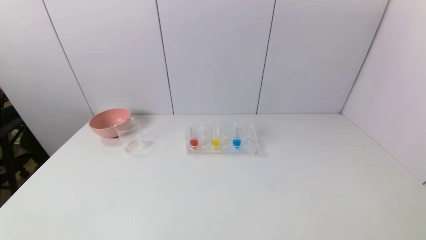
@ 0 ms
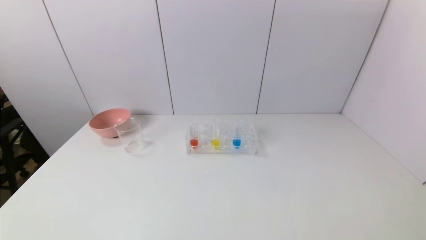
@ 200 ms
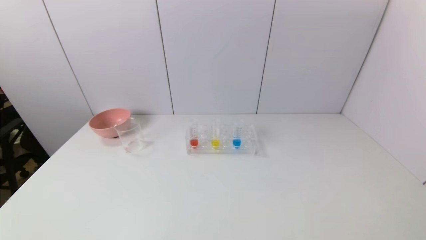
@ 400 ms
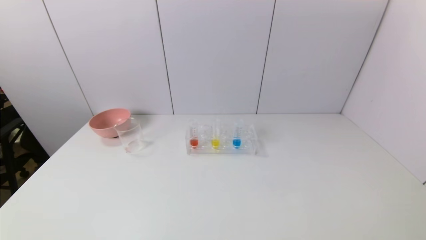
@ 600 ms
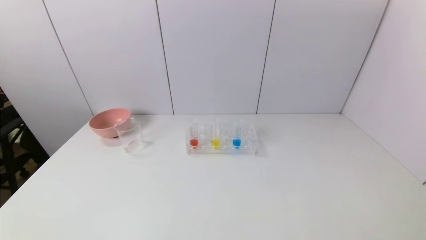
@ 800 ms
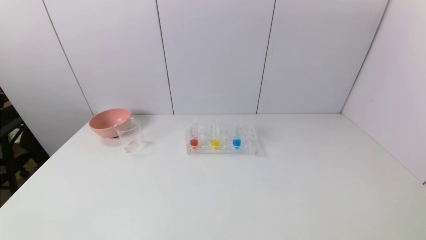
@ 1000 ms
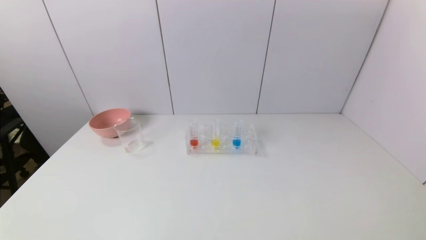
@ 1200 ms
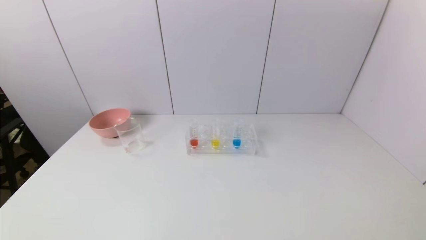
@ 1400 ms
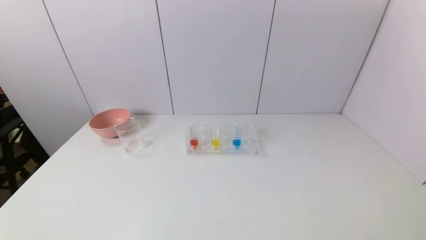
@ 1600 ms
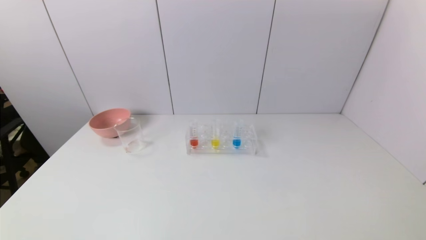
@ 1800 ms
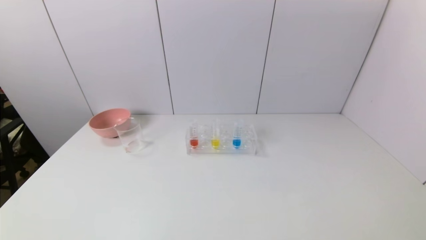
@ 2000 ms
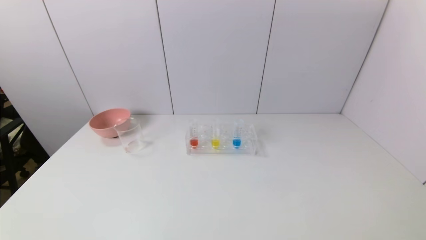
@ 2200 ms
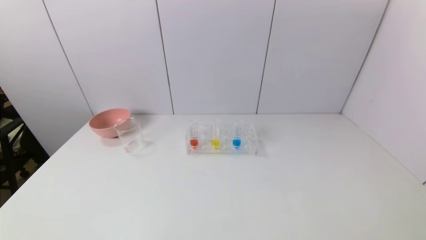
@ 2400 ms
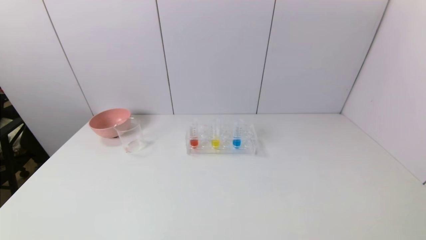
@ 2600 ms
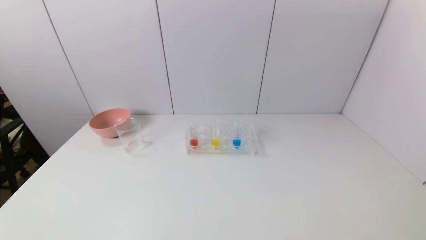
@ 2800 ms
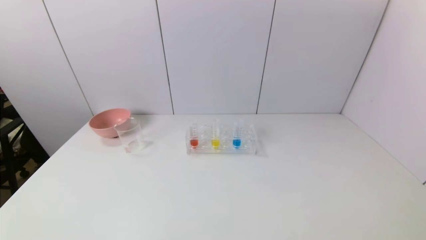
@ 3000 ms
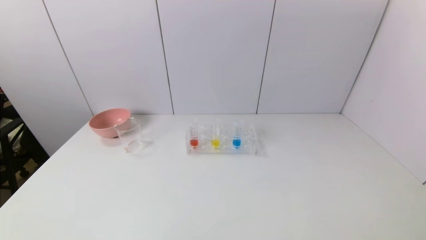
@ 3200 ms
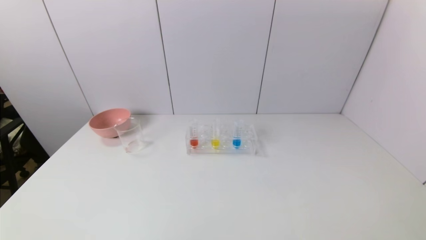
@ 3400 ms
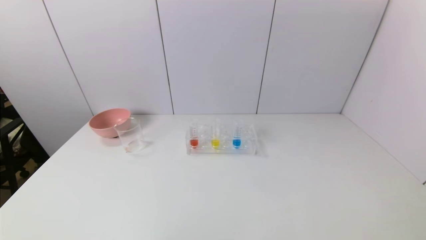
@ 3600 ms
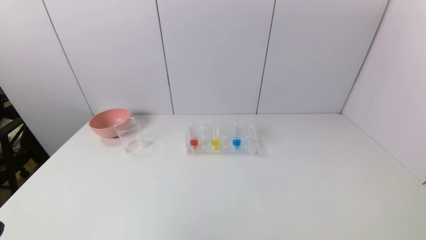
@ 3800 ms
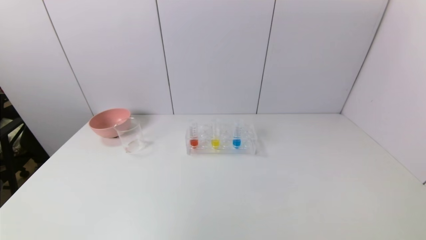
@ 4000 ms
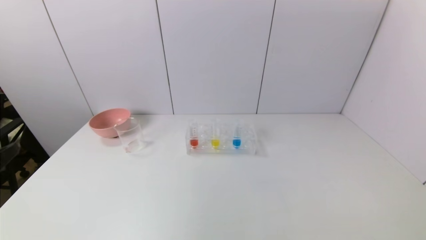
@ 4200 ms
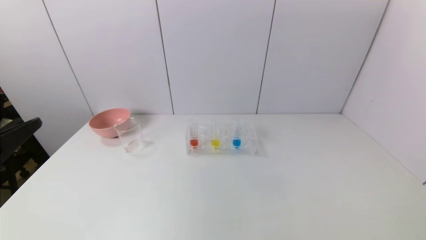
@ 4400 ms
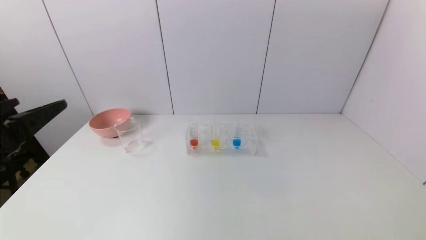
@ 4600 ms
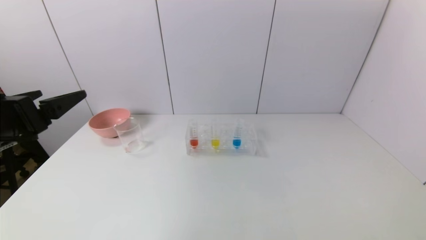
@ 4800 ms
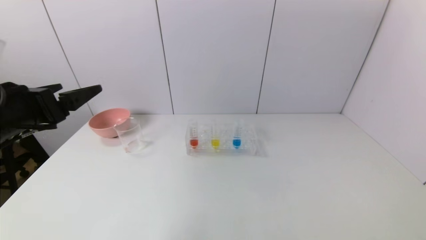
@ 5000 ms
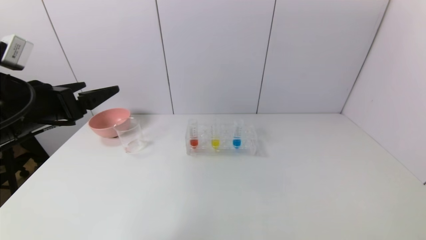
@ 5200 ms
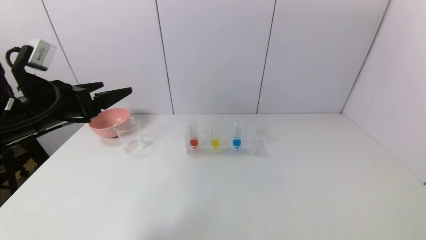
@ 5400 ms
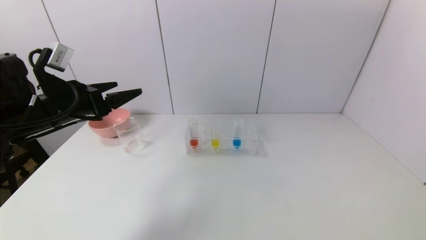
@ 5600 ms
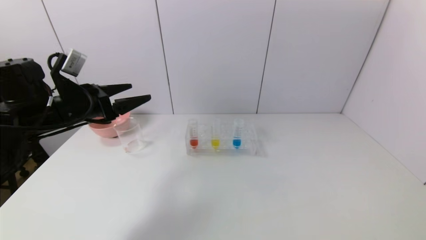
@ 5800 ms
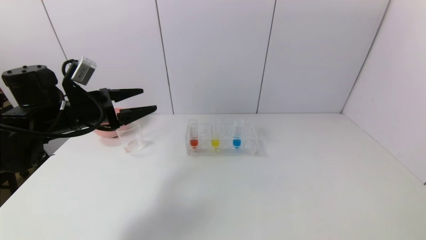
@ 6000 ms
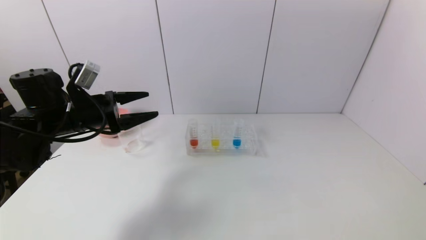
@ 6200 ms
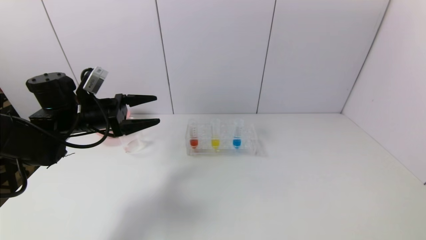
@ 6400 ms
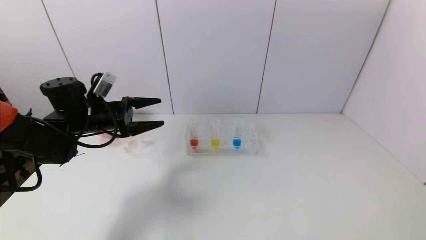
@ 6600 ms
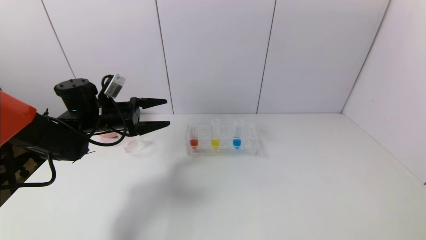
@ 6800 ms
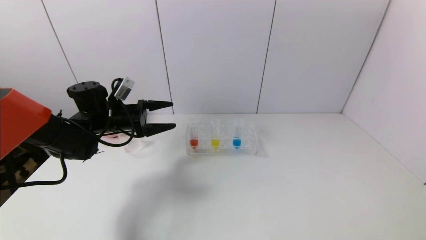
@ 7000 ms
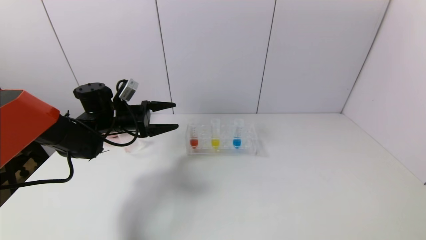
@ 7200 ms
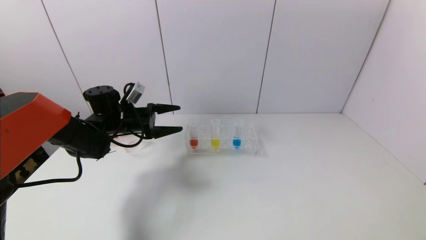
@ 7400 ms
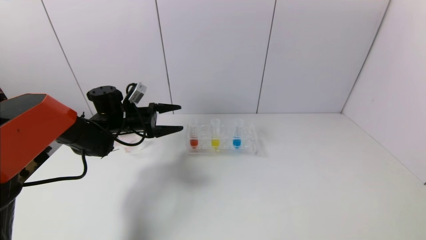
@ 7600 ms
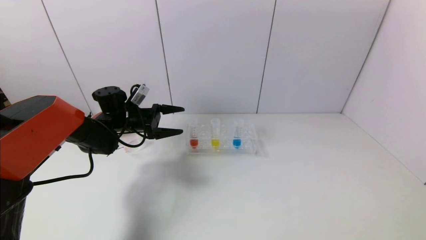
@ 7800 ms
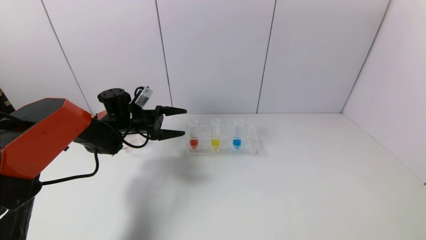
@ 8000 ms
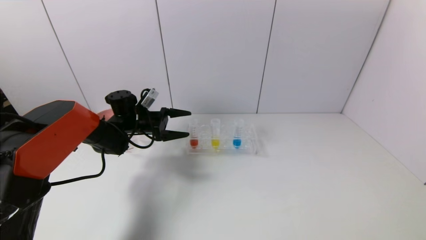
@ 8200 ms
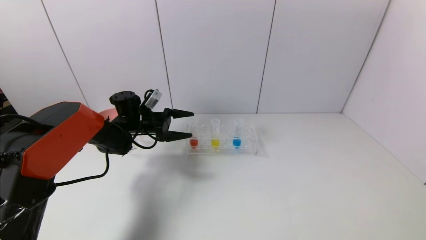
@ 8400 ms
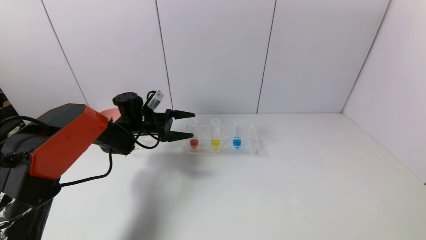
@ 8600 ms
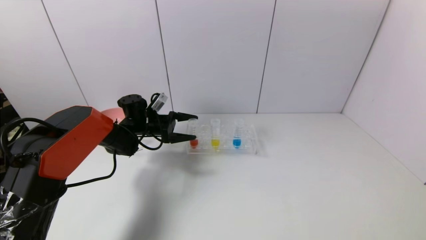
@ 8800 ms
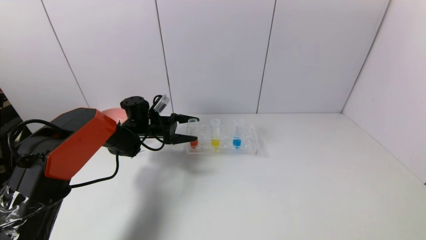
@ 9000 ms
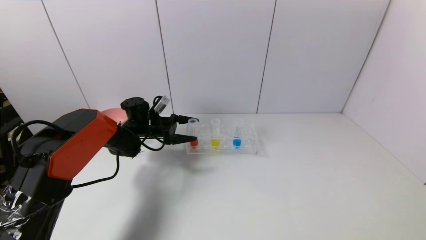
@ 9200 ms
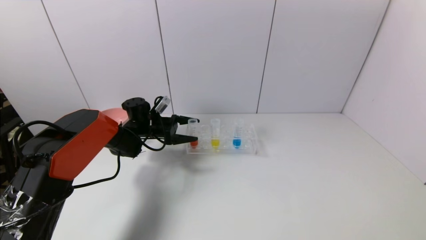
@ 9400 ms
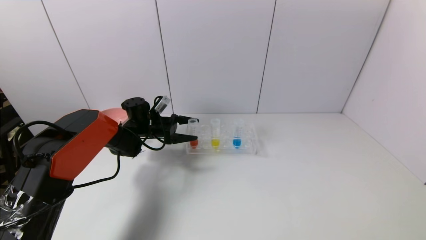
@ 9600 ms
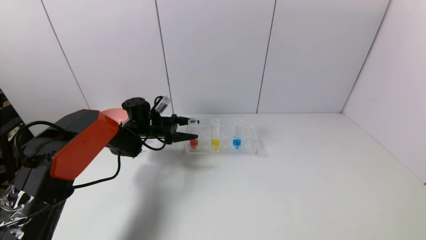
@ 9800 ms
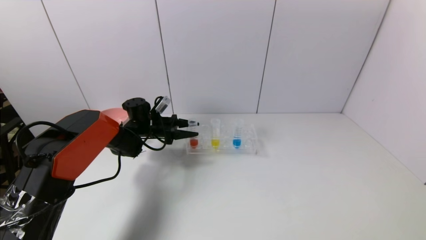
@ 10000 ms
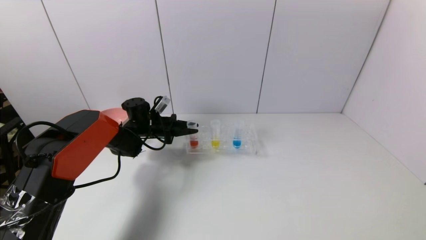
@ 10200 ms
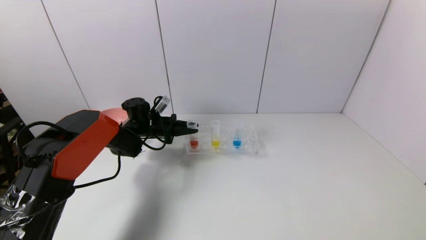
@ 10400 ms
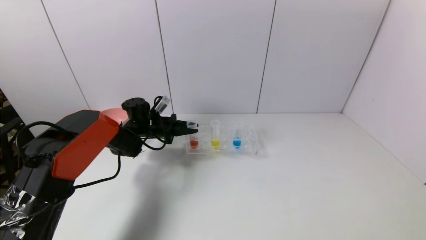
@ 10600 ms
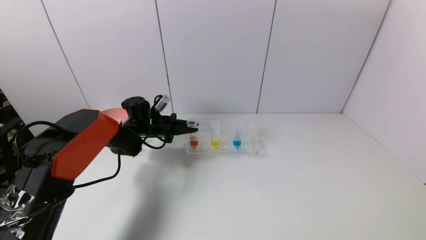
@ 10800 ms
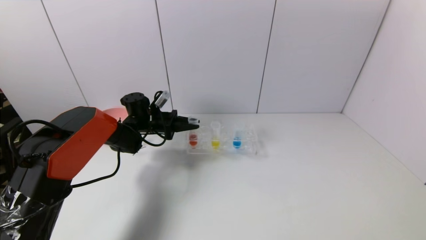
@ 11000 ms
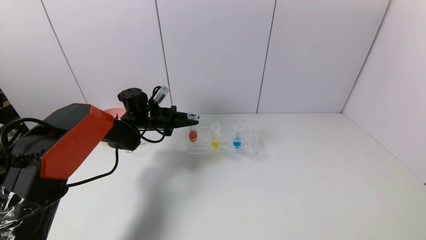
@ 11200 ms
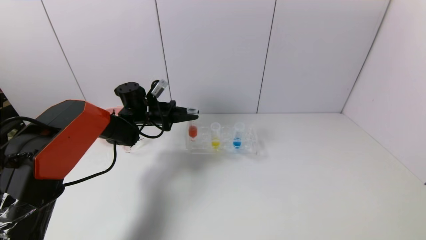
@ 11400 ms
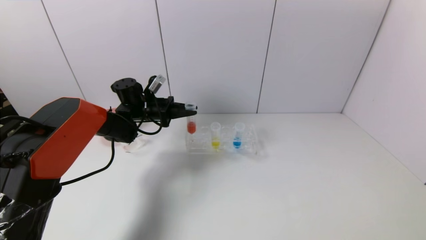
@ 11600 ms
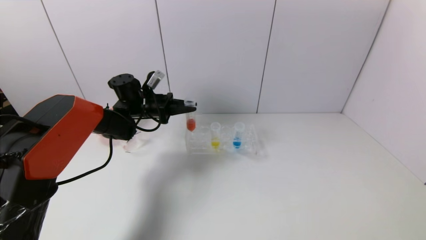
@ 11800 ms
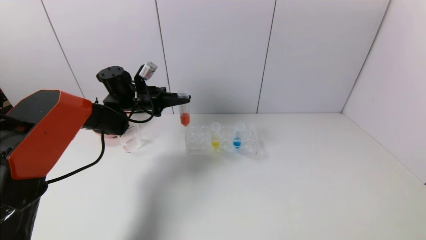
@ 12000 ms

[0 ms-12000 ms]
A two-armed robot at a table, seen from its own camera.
Task of the whole recording: pick up the test tube with red pigment and the test tube with blue pigment by grippers and pour them into the container.
Step, 0 ms to 10600 ms: Grasp the red reagent with the left gripper.
0 ms to 3000 ms: Both grippers stay about where they are.
4400 ms to 6000 ms: The left gripper shifts approximately 20 cm forward.
6000 ms to 7600 ms: The left gripper heads forward and downward, covering some 15 cm.
7600 ms to 9000 ms: The left gripper goes about 5 cm downward.
9000 ms to 10400 ms: The left gripper closes its fingers.
10400 ms to 12000 ms: The left gripper heads upward, covering approximately 10 cm.

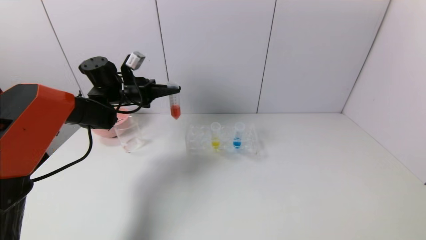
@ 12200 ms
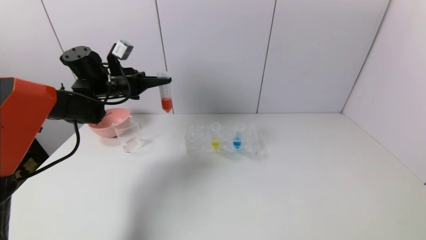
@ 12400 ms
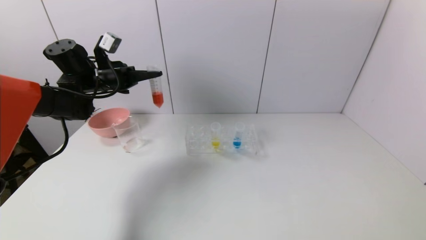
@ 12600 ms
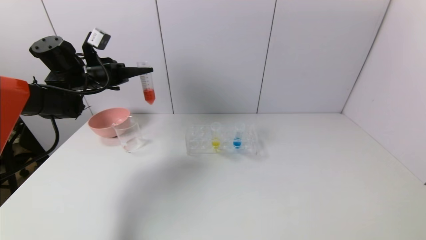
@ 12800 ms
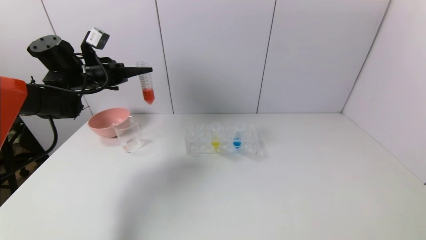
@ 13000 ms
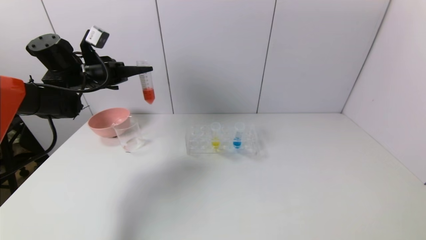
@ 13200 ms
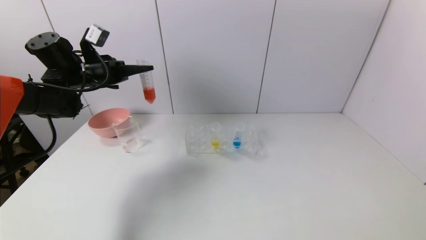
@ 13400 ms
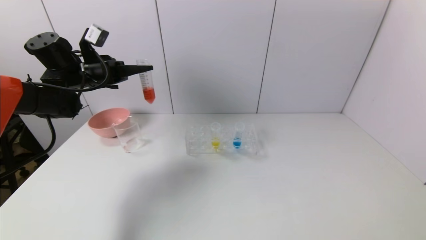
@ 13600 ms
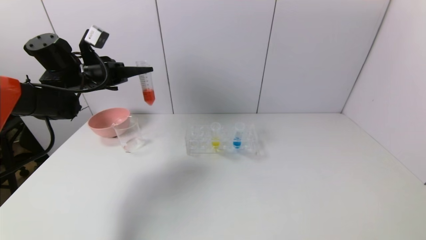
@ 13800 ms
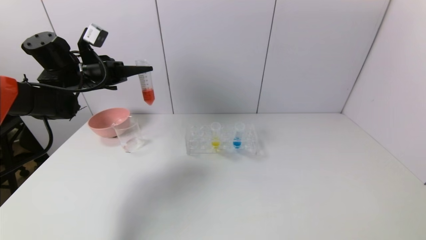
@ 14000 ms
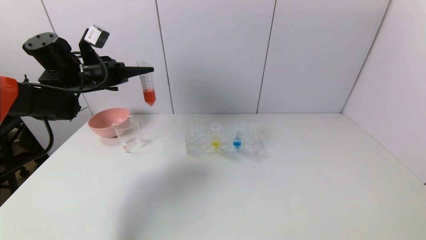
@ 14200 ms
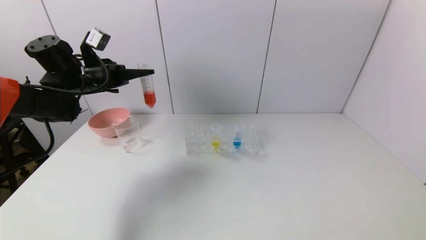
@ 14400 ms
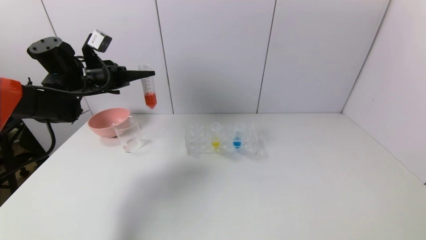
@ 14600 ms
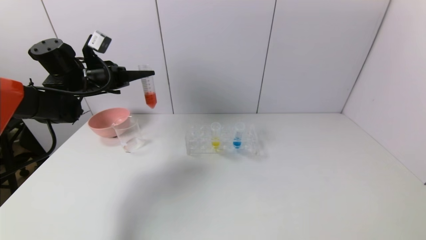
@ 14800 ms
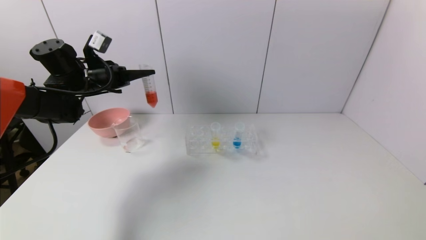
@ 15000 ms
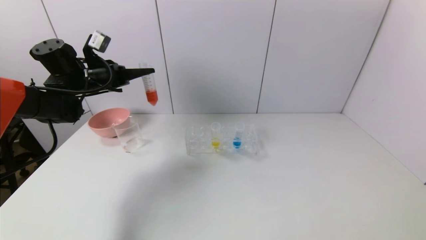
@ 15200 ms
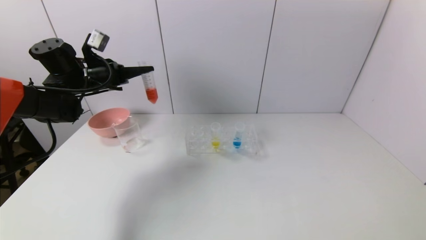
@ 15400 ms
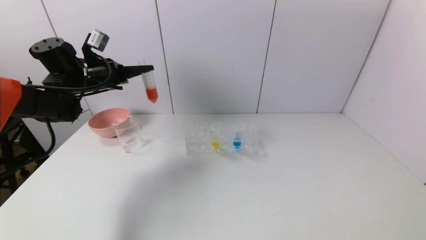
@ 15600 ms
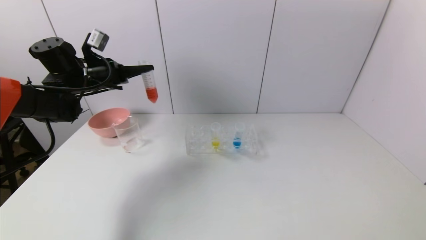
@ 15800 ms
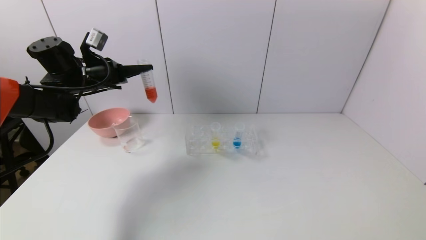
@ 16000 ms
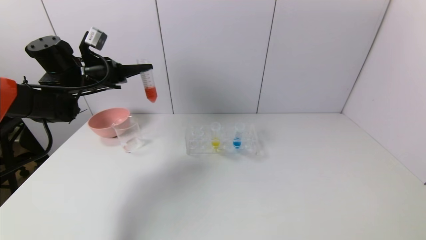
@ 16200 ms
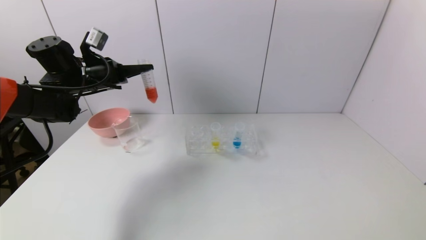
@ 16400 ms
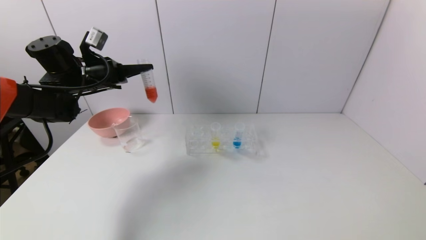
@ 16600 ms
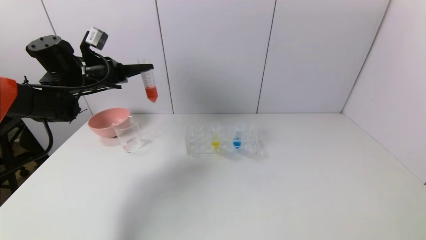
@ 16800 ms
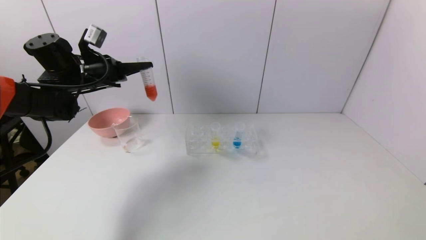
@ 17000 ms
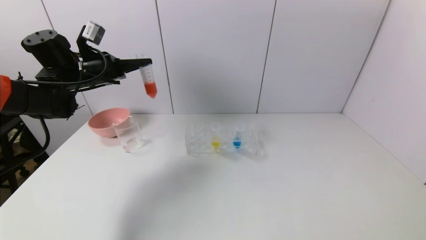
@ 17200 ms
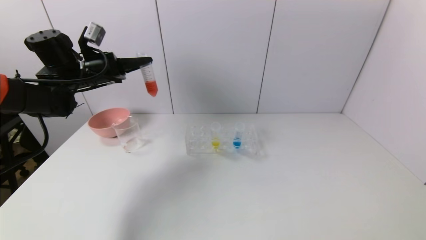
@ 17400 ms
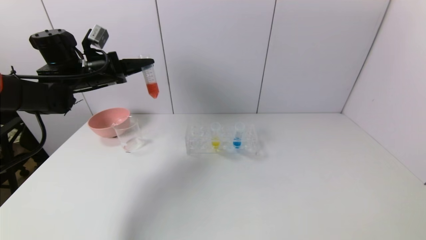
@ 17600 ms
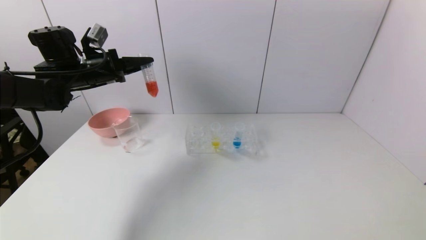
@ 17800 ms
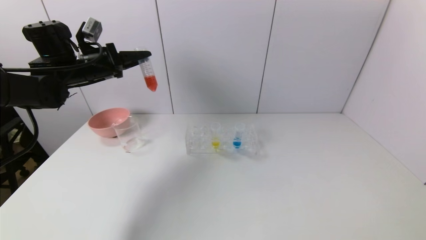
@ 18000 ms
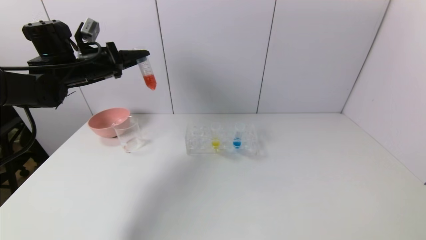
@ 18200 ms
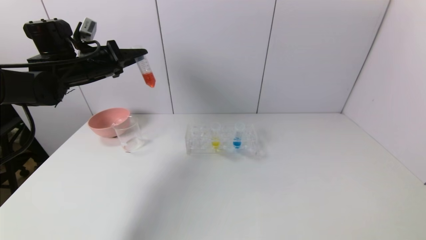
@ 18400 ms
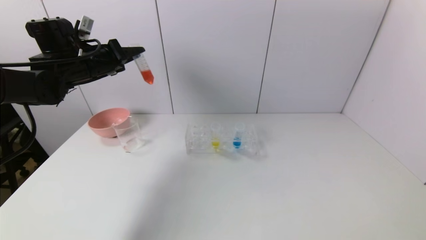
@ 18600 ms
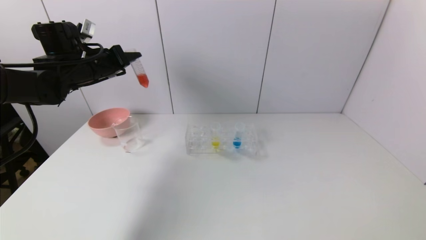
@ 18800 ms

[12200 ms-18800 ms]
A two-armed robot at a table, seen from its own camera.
Task of the whole recording: pick up the test tube with red pigment and the test tube with blue pigment by grippers and pour them into the container.
12200 ms to 13800 ms: The left gripper travels to the left by about 5 cm.
13800 ms to 17200 ms: The grippers make only small movements.
